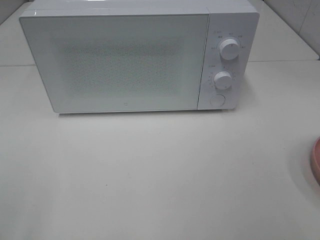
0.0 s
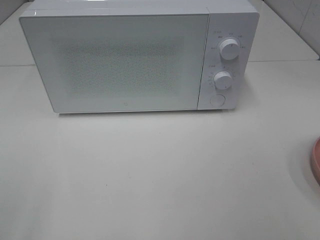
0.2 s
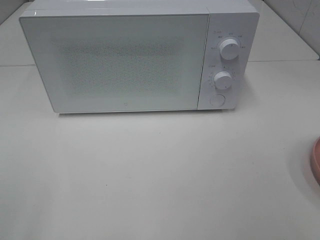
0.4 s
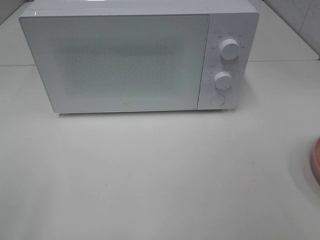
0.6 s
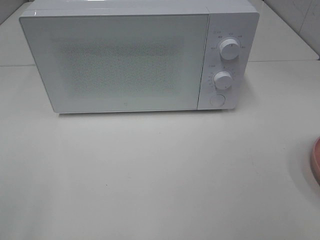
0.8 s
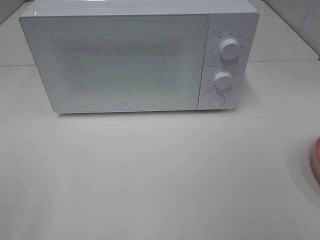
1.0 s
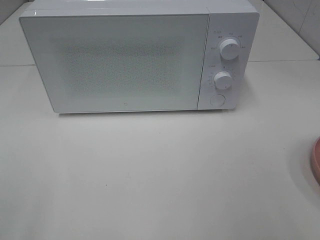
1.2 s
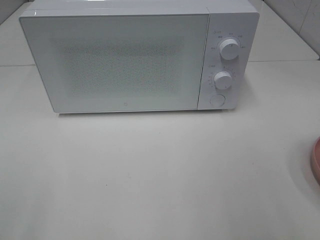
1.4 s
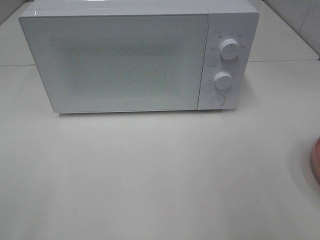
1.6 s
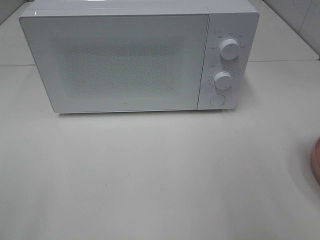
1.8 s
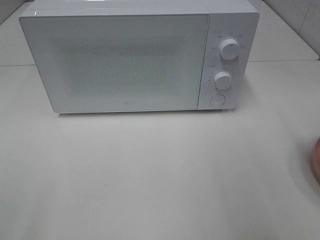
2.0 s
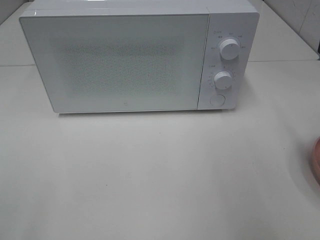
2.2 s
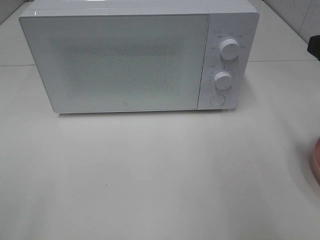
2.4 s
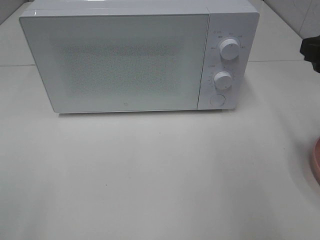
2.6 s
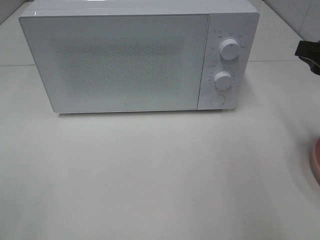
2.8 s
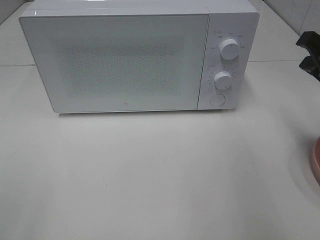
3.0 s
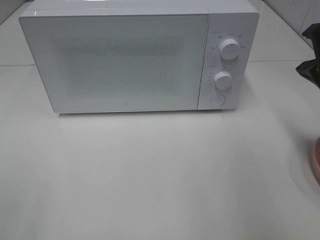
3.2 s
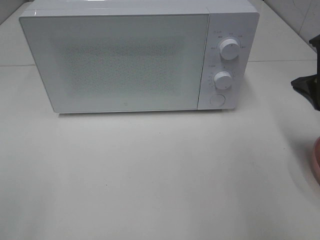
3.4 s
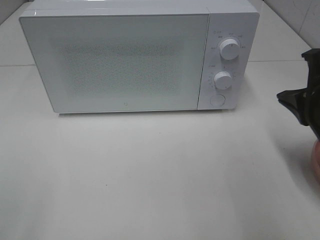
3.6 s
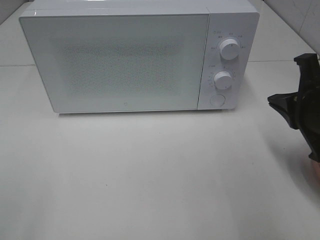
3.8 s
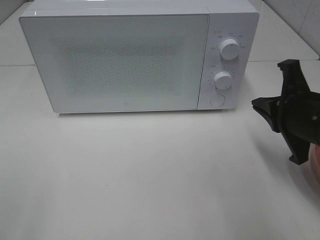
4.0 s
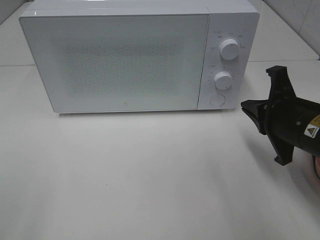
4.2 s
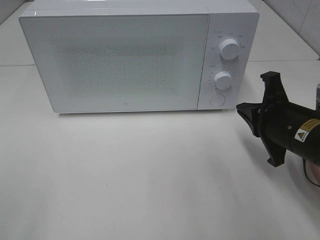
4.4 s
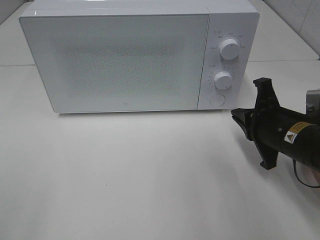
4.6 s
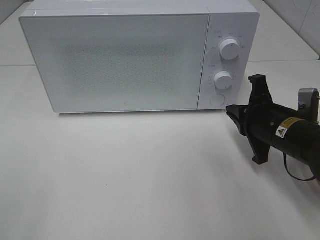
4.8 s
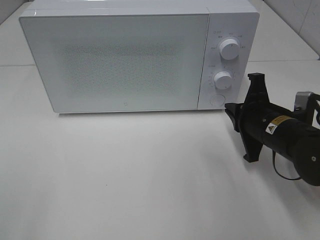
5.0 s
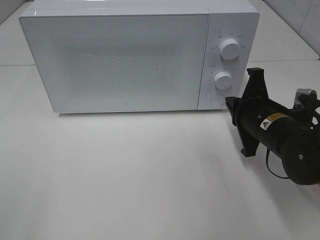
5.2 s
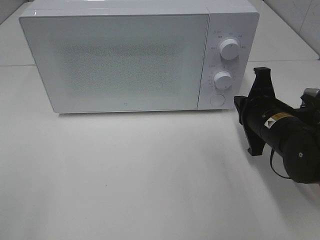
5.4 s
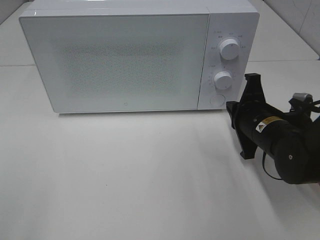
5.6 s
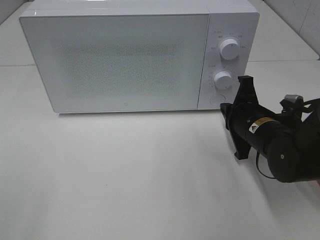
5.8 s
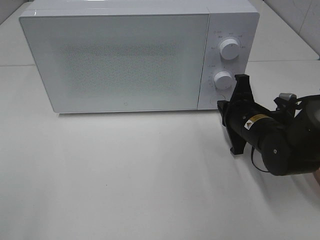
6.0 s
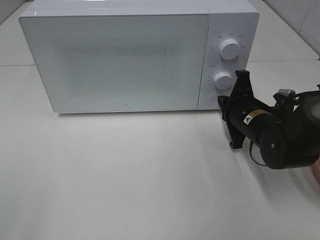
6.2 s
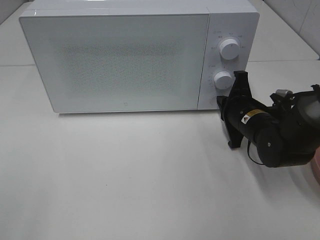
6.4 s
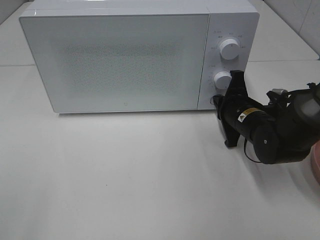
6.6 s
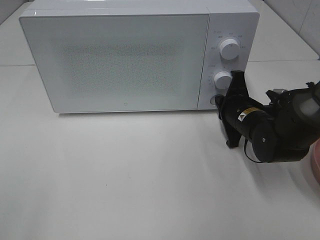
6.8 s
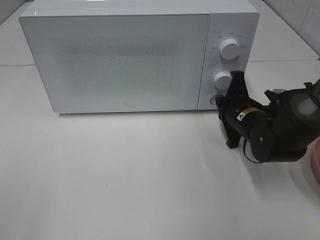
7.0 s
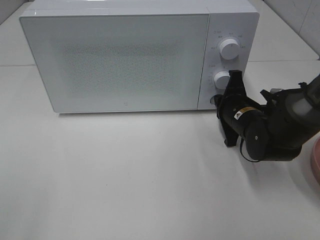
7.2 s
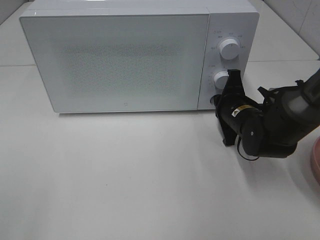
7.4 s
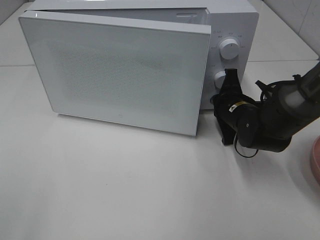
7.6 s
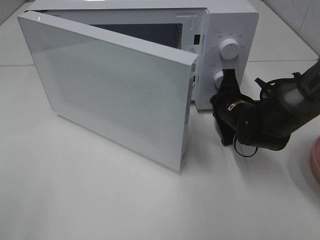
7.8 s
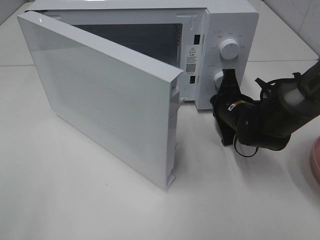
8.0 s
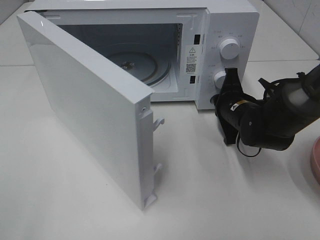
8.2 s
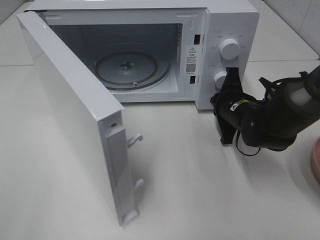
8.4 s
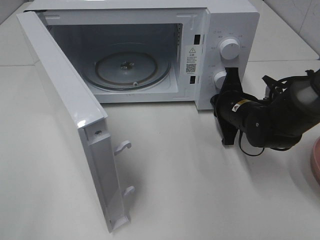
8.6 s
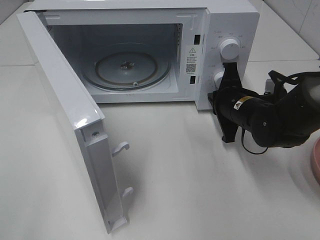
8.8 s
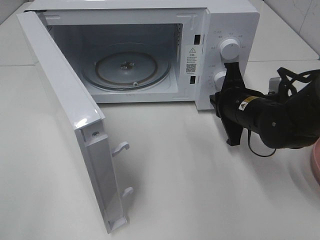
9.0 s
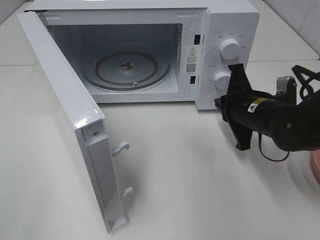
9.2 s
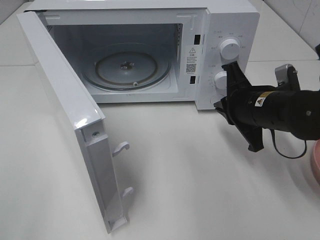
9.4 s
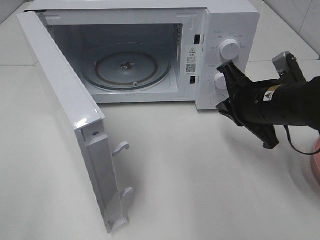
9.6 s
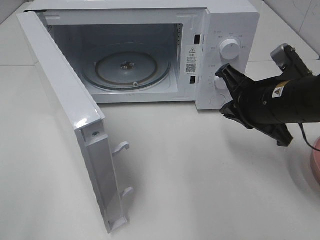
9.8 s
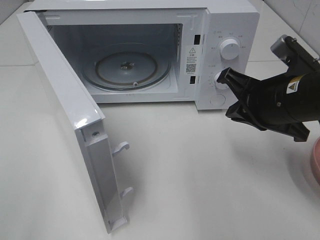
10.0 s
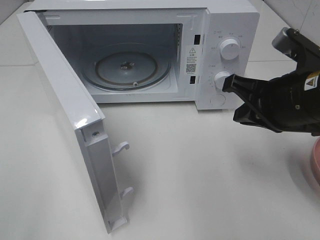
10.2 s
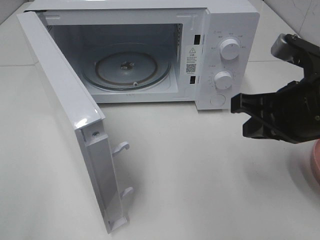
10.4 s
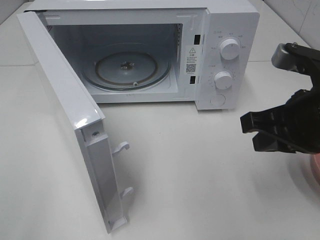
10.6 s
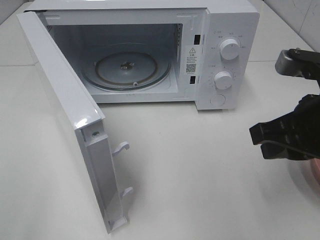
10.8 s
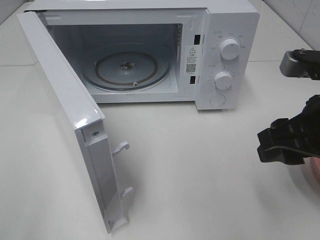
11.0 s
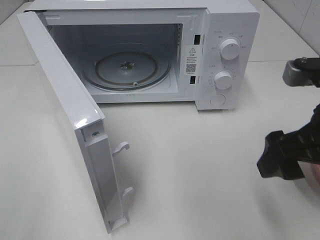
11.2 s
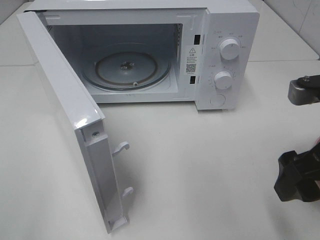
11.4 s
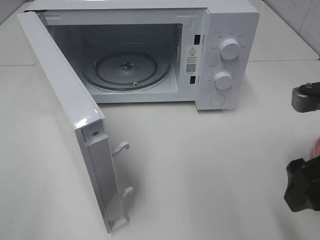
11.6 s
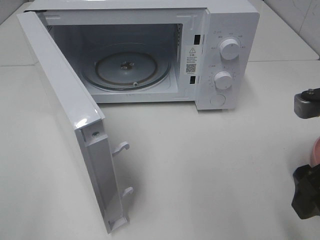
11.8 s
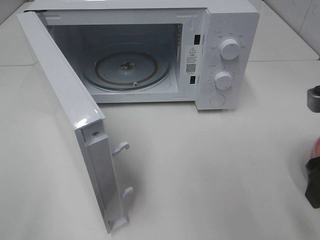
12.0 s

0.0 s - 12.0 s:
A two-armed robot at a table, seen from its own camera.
Task of the whole recording: Heat the burger.
Step, 0.0 s - 8.8 s: Right hand: press the switch.
1.6 s - 3.0 s: The right gripper heads forward and downward, covering roughly 15 cm, and closes its fingers.
3.0 s - 4.4 s: The right gripper travels downward and to the left by about 10 cm.
4.4 s - 6.0 s: The right gripper heads forward and downward, covering about 10 cm.
6.0 s - 7.6 s: The grippers make only small movements.
7.6 s - 9.0 s: The right gripper moves some 5 cm.
9.0 s - 10.4 s: The right gripper is displaced upward and backward by roughly 15 cm.
10.4 s - 12.0 s: The right gripper shifts roughly 5 cm to the right, and opens.

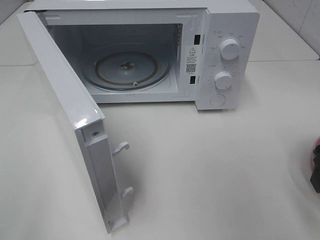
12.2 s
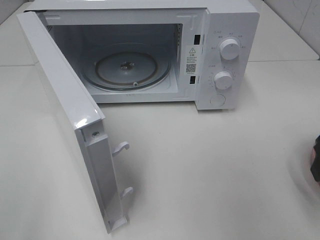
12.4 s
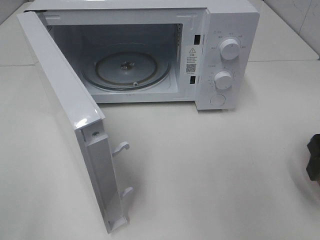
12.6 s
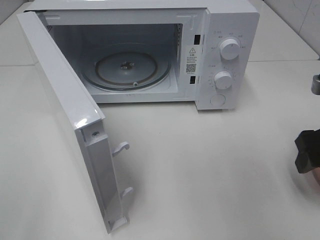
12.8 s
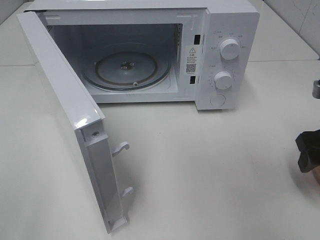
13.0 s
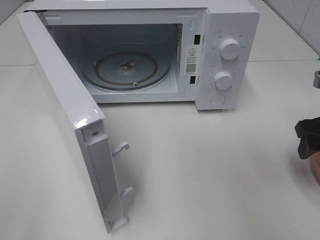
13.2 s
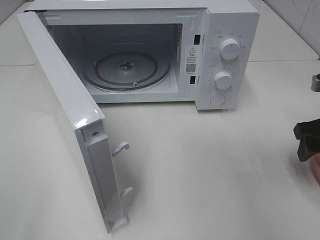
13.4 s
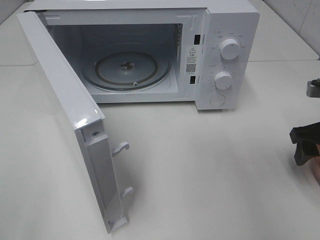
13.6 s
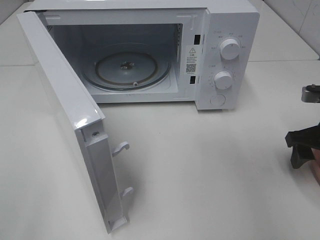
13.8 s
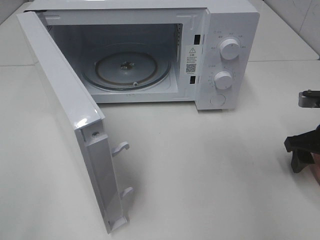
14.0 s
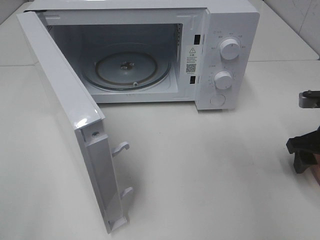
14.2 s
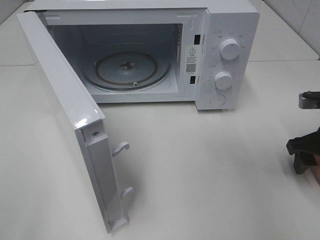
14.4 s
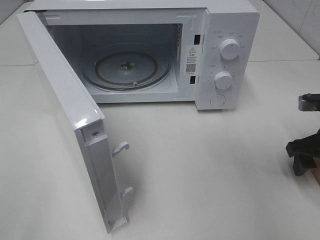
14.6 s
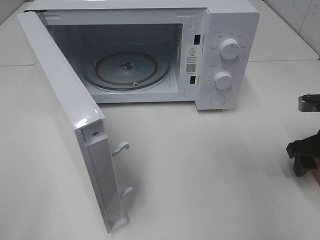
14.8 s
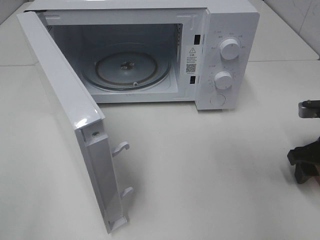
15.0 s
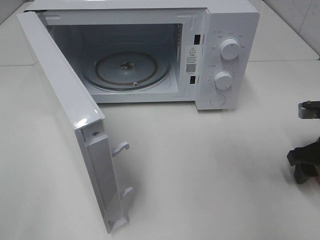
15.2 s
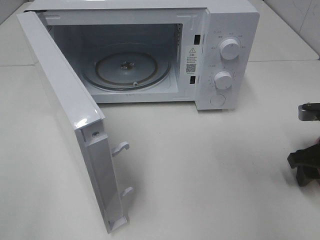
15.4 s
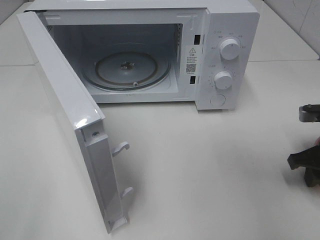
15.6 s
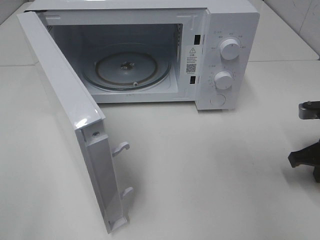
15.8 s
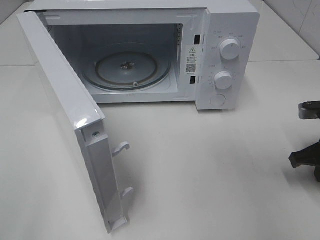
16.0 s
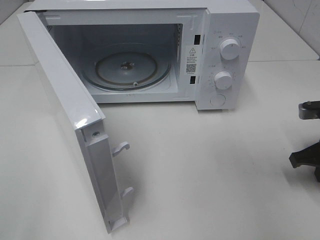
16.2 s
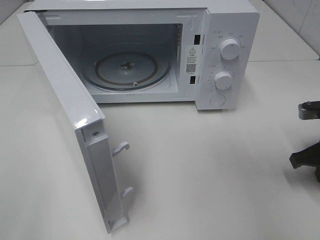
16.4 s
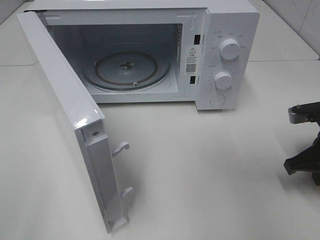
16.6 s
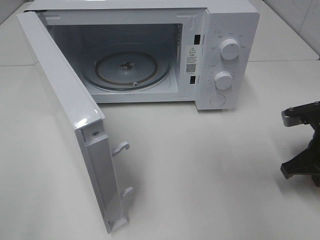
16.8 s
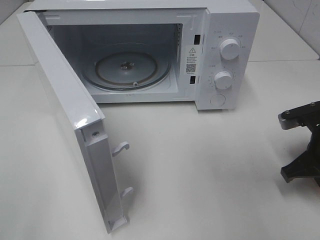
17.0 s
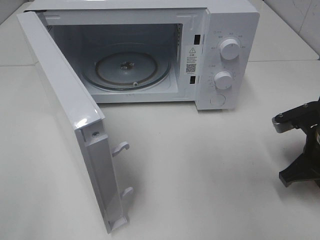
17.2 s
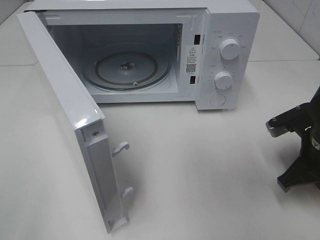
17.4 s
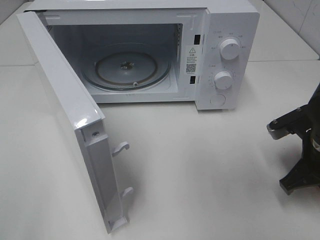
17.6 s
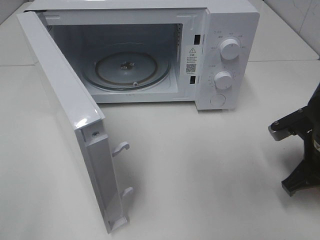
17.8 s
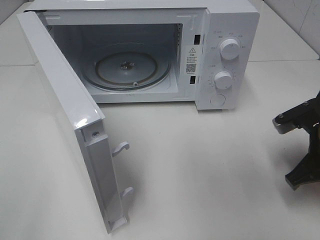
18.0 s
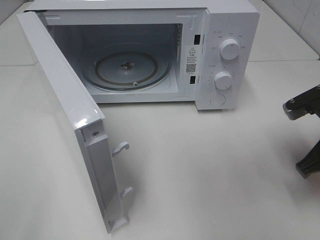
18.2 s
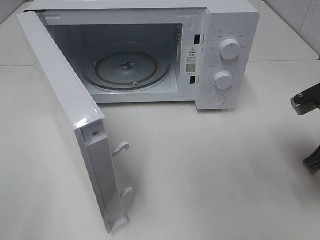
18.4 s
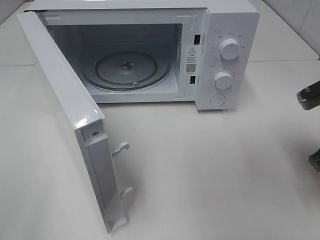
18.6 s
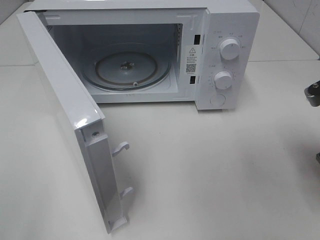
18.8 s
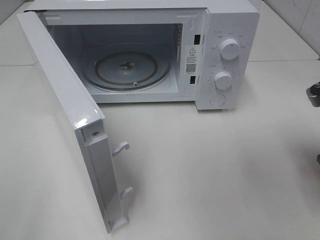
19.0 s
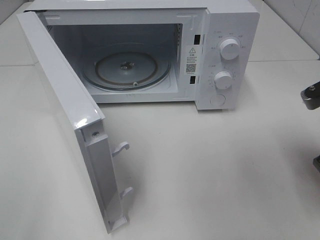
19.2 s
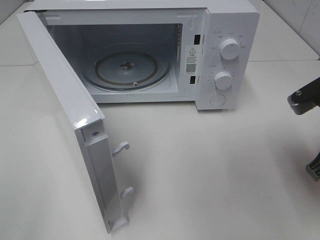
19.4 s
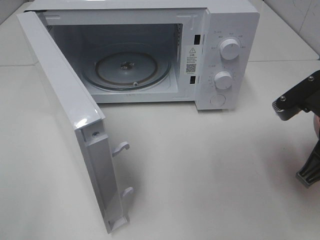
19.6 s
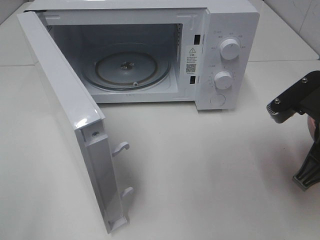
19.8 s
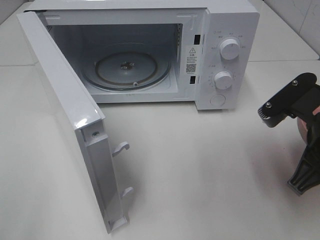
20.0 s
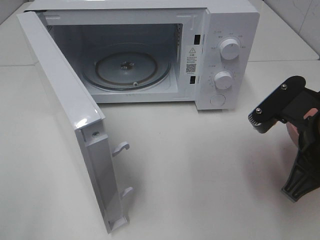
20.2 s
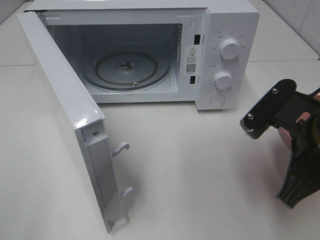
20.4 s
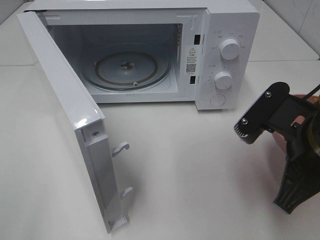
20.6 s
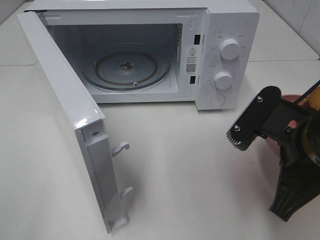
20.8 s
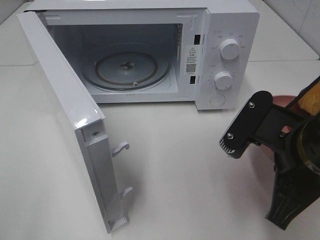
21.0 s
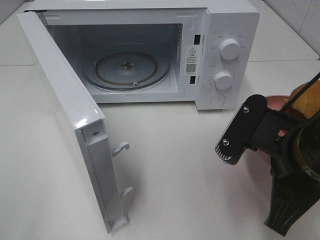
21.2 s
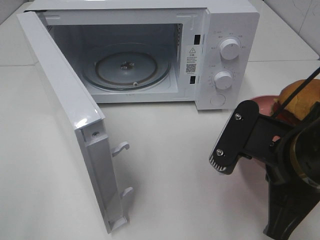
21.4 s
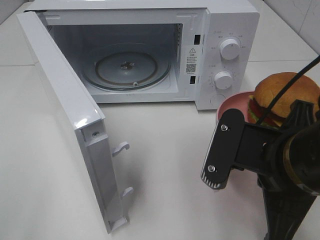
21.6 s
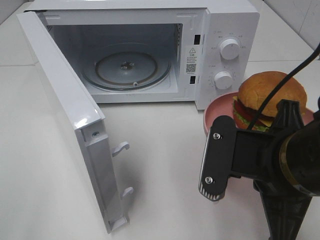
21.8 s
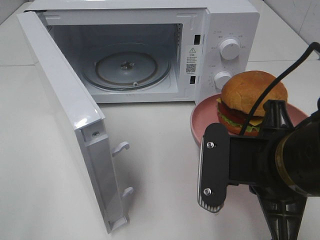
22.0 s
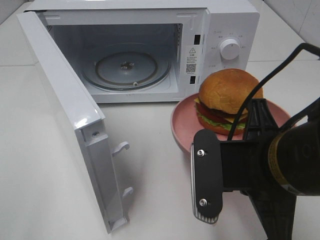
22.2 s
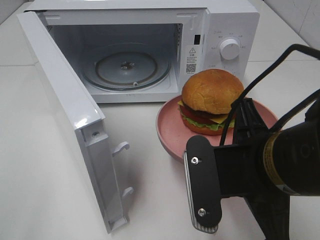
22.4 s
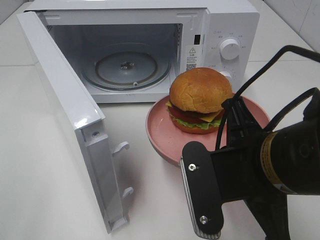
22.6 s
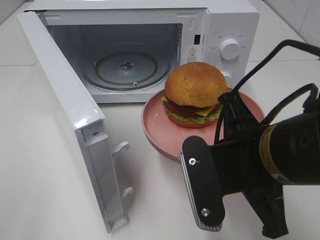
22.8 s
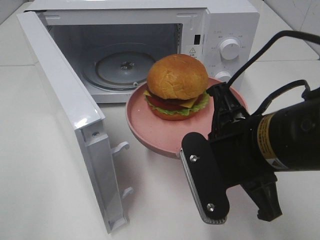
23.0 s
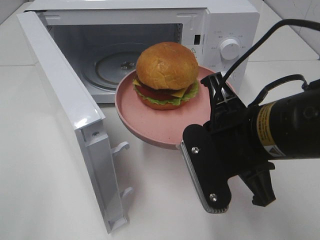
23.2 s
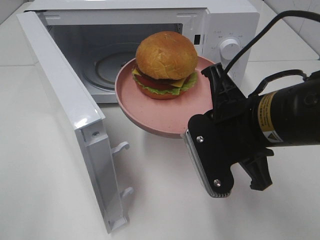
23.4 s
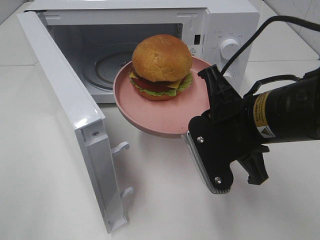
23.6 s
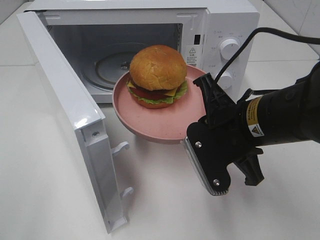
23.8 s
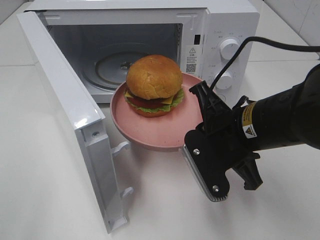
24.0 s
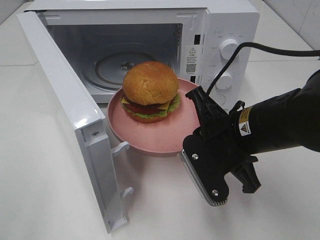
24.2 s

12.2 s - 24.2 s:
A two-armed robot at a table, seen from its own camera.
Task of the whole recording: Heat the burger.
Step, 12.2 s - 16.4 s: Right hand: grab the plate with the hamburger.
12.2 s - 13.8 s: The right gripper travels forward and downward by roughly 15 cm.
13.8 s - 15.2 s: The grippers stay close to where they were, moving slightly.
15.2 s - 16.6 s: The right gripper closes.
16.6 s - 18.2 s: The right gripper changes place by approximately 5 cm.
18.2 s - 19.8 s: The right gripper moves approximately 5 cm.
19.8 s - 21.2 s: The right gripper moves to the left, roughly 5 cm.
22.6 s - 24.2 s: The right gripper travels forward by about 10 cm.
